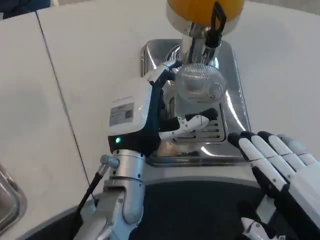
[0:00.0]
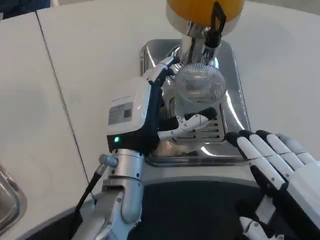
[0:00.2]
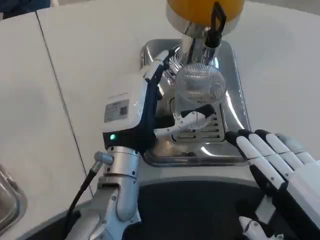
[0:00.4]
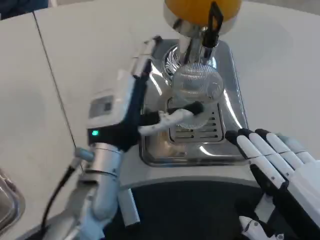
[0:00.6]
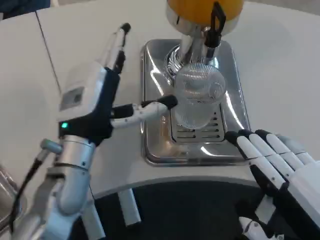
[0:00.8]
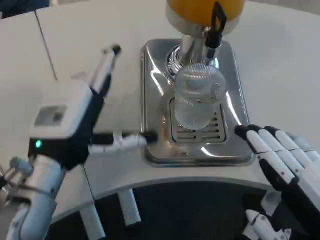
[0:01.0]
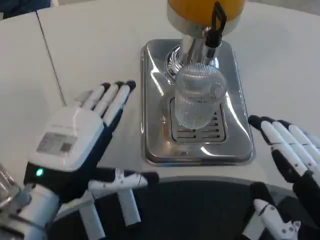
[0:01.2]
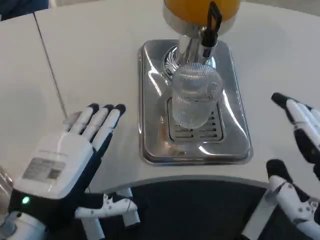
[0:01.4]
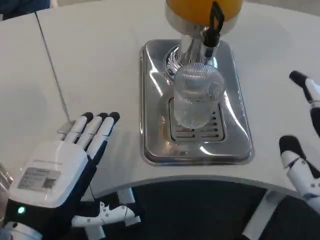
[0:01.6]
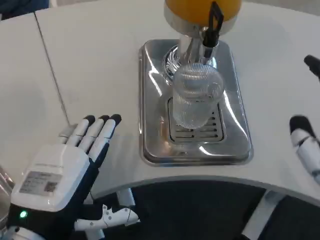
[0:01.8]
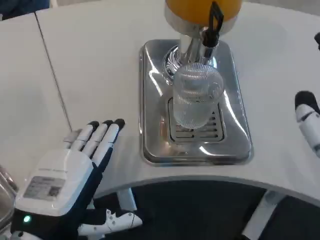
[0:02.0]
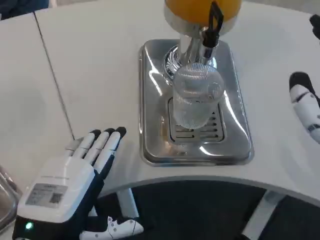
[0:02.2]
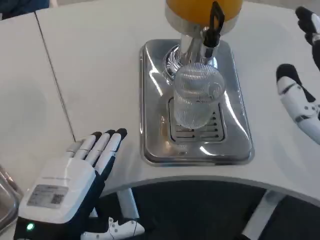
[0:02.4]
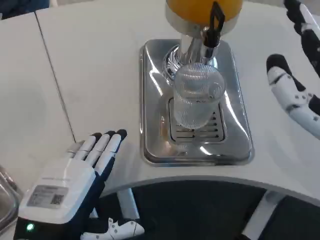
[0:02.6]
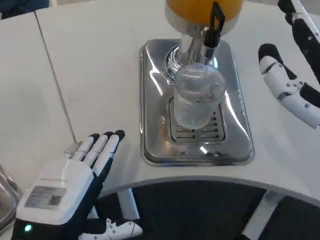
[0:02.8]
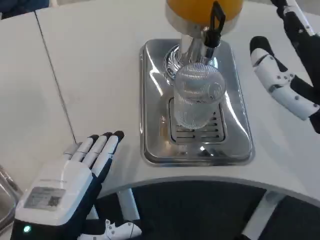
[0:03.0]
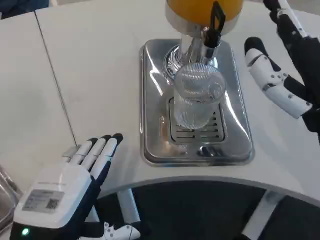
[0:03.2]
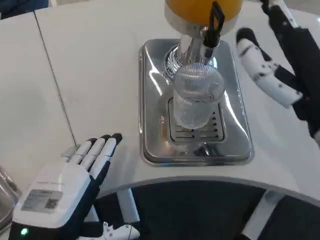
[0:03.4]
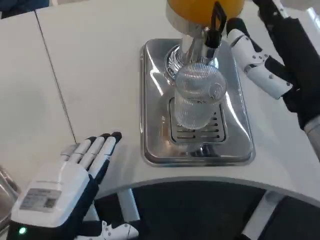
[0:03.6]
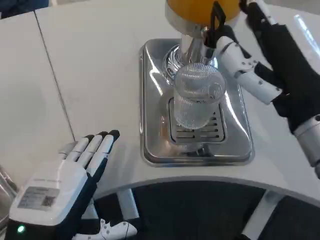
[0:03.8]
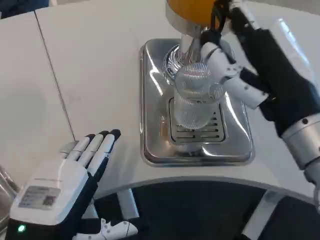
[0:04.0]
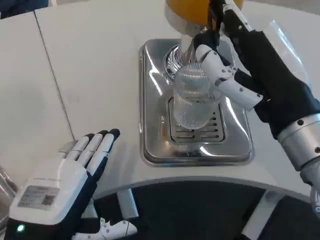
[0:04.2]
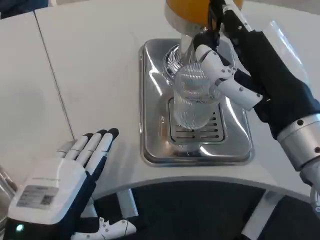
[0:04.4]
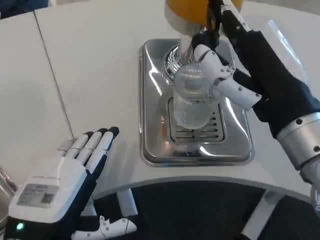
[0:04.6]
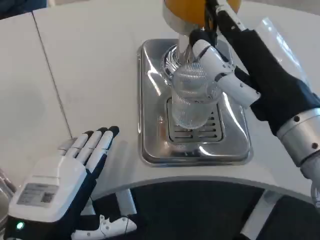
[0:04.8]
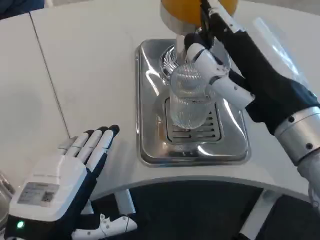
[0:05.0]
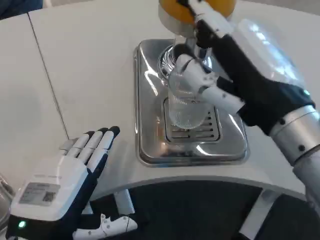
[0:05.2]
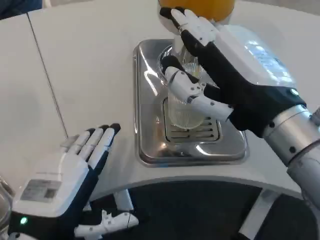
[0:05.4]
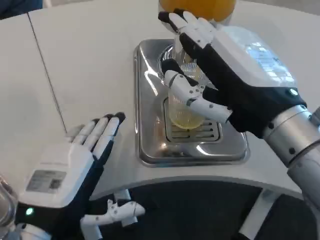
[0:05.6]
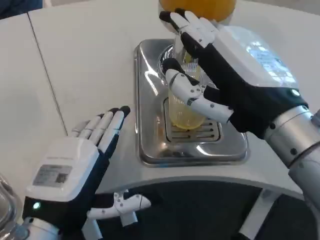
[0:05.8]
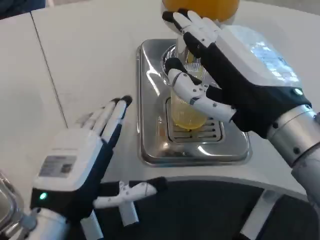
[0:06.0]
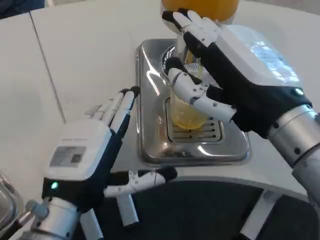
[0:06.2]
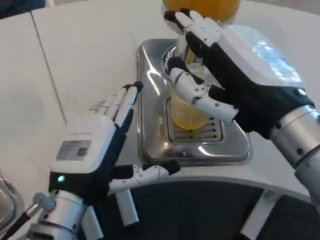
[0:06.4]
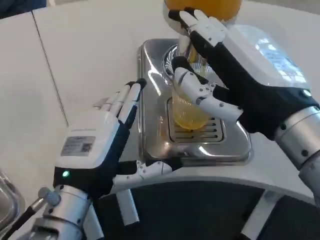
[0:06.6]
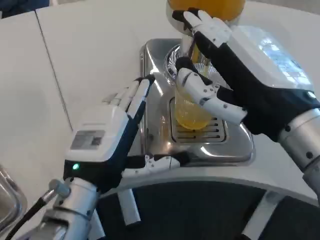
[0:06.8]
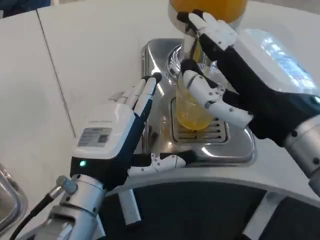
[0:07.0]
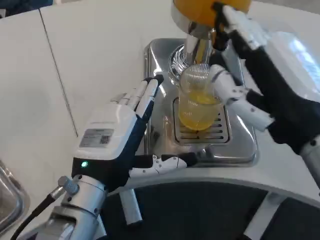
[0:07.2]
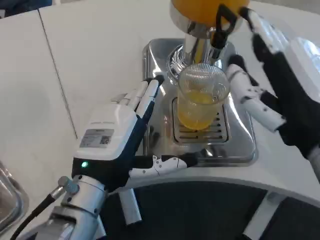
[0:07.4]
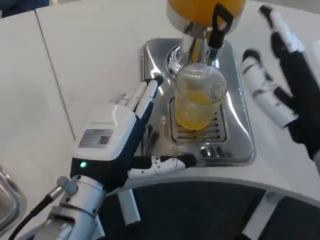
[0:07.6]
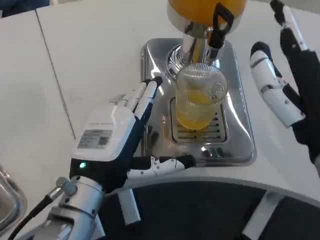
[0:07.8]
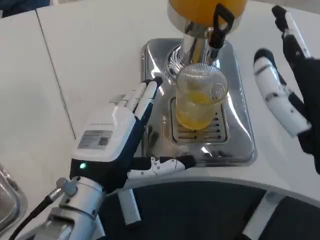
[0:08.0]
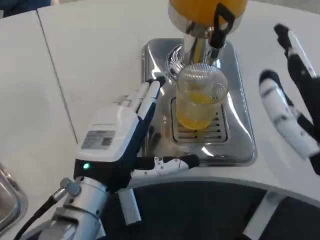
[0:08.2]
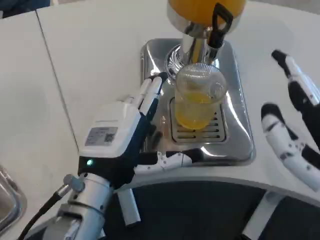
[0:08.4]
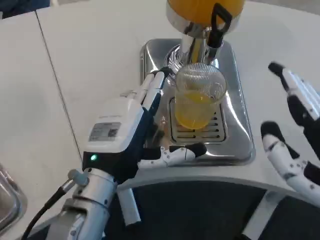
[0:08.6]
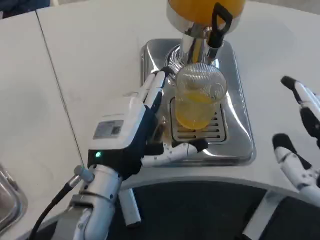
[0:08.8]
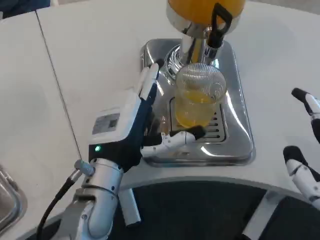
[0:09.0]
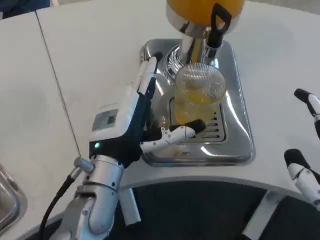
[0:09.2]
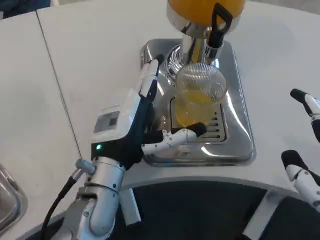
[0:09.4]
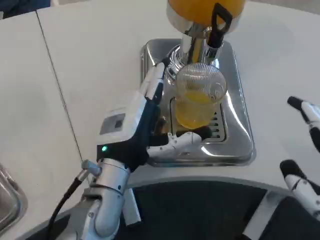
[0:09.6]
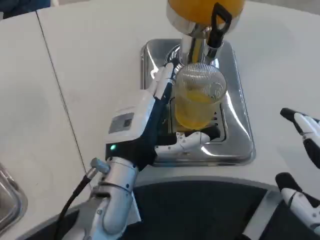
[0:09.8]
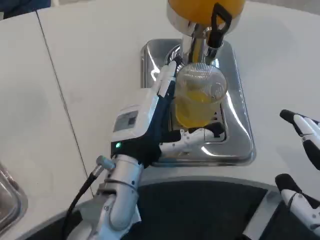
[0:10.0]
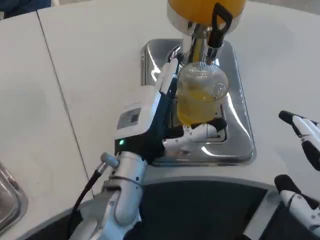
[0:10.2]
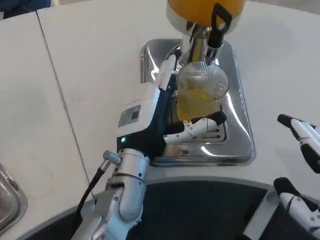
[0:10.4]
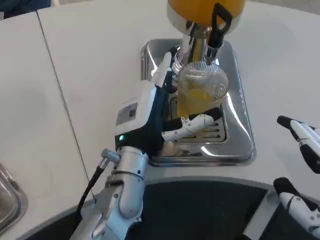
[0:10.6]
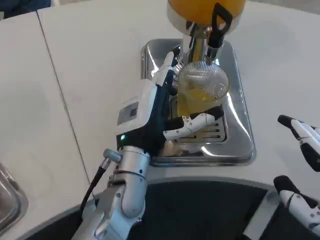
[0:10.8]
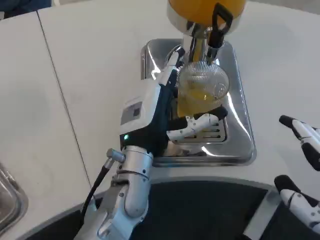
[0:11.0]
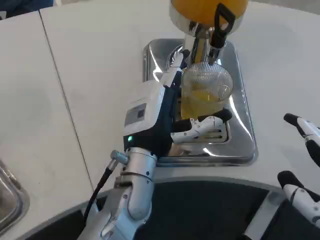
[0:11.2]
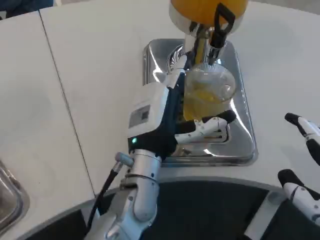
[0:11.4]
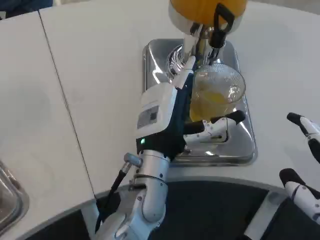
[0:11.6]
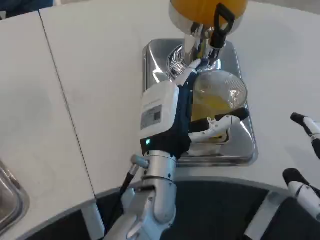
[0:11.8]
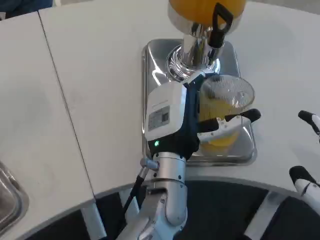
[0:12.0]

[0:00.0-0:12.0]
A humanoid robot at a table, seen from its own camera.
Task of the whole recording: Grasp the cup under the faucet to collect the drink, then remove the cup.
0:00.0 to 0:01.6: The left hand goes about 20 cm backward and to the left.
0:01.6 to 0:03.0: The right hand moves forward, roughly 10 cm.
0:06.0 to 0:07.6: The left hand ends up approximately 5 cm from where it was.
0:07.6 to 0:09.0: The right hand travels to the right and backward by about 10 cm.
0:09.0 to 0:10.4: There are only small adjustments of the hands.
0:10.4 to 0:12.0: The left hand shifts some 5 cm to the right.

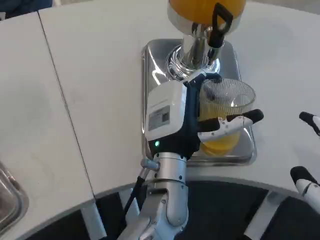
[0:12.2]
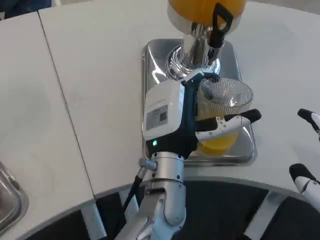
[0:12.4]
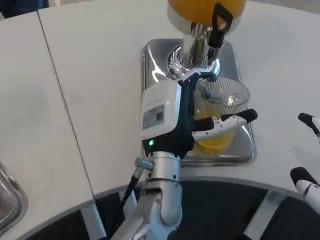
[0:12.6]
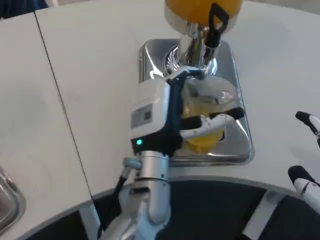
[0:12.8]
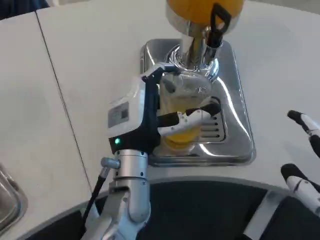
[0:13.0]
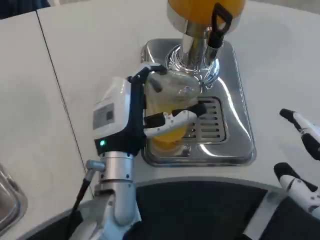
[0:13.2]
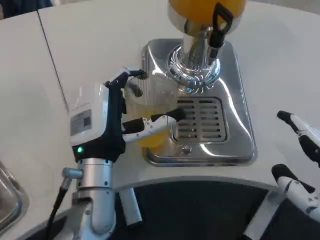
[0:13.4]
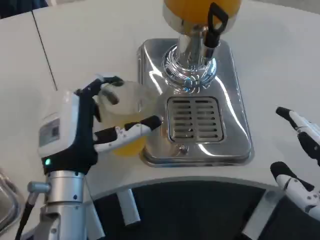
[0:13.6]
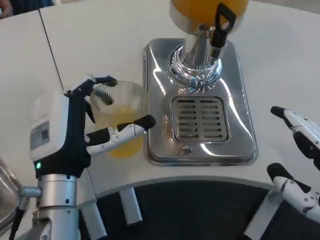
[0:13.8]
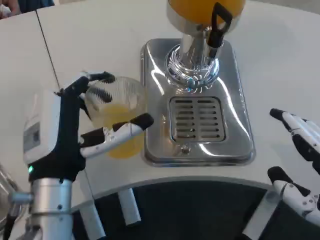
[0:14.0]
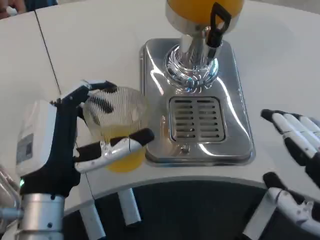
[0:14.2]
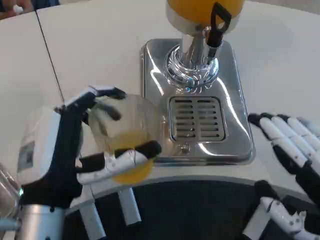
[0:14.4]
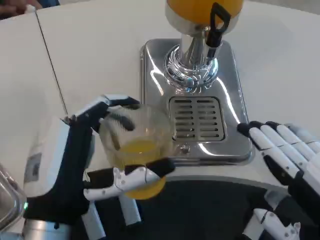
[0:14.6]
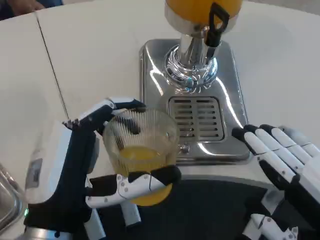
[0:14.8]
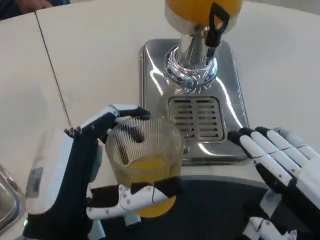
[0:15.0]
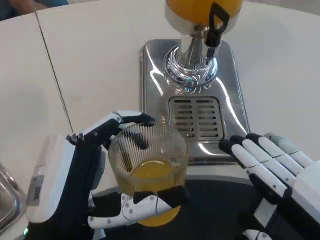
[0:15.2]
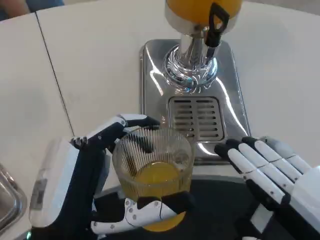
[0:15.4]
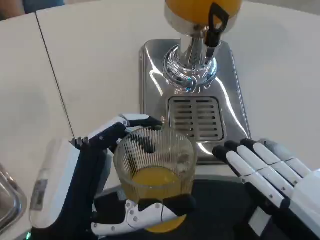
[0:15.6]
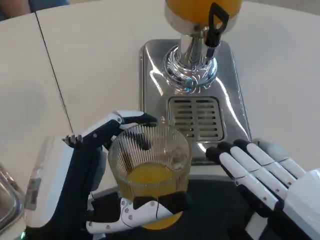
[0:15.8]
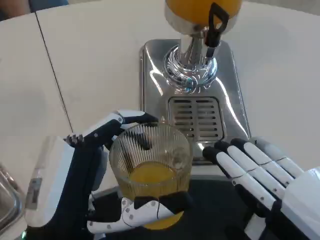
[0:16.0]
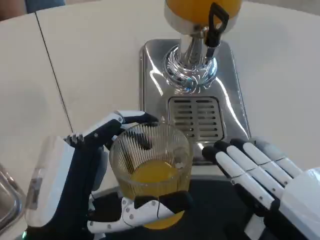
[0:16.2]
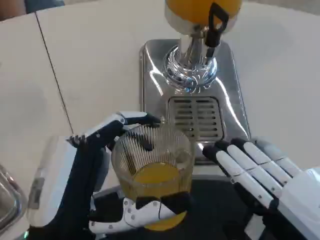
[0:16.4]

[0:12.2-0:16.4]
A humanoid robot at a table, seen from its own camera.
Task of the whole recording: Grasp the cup under the faucet to collect the drink, then remove the cup.
0:12.2 to 0:13.6: The left hand moves to the left, roughly 15 cm.
0:13.6 to 0:15.0: The left hand goes approximately 10 cm backward.

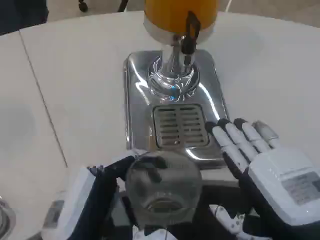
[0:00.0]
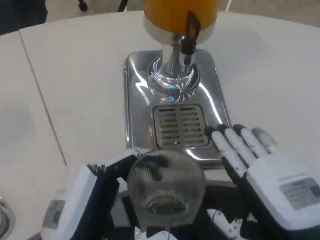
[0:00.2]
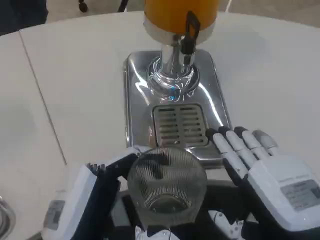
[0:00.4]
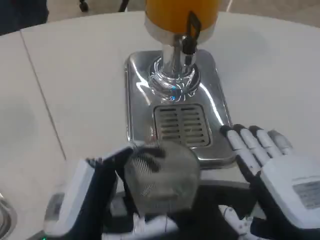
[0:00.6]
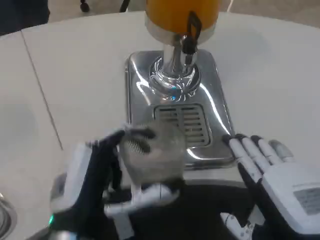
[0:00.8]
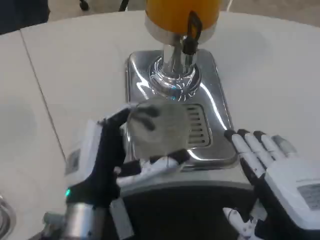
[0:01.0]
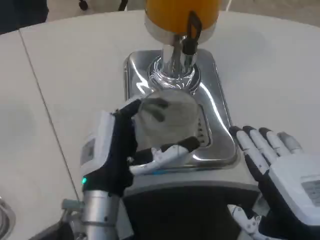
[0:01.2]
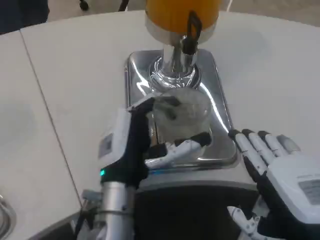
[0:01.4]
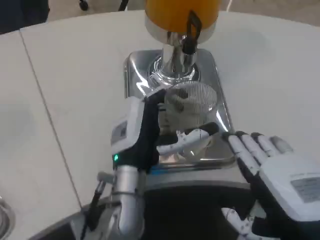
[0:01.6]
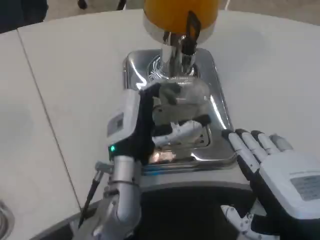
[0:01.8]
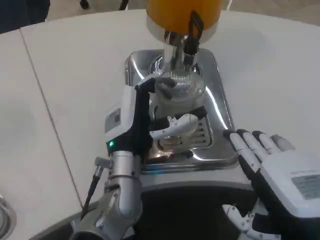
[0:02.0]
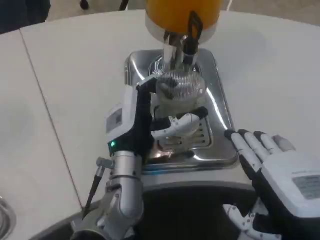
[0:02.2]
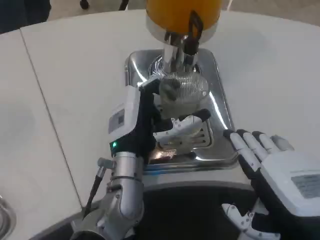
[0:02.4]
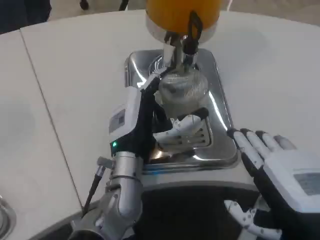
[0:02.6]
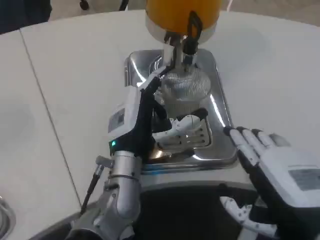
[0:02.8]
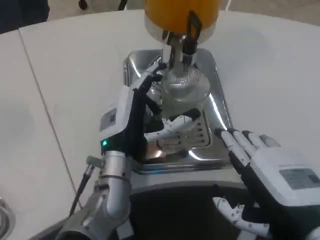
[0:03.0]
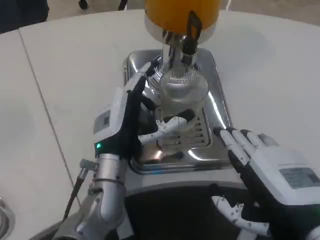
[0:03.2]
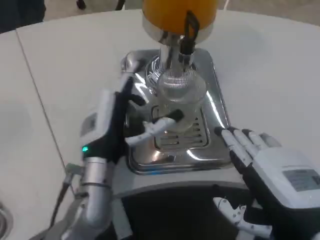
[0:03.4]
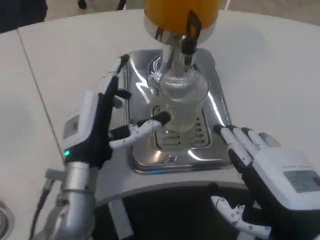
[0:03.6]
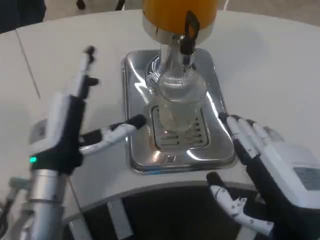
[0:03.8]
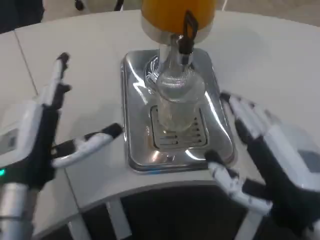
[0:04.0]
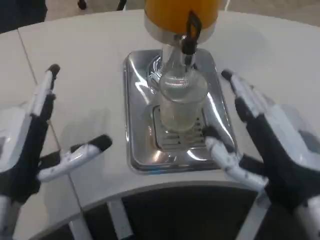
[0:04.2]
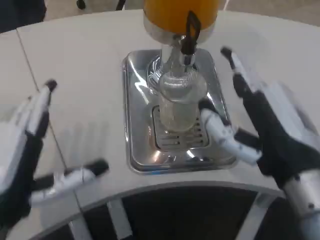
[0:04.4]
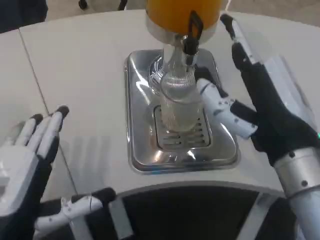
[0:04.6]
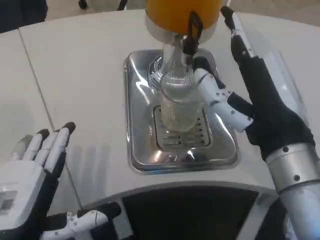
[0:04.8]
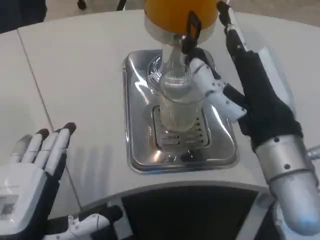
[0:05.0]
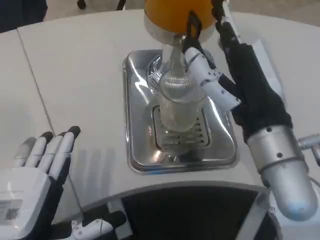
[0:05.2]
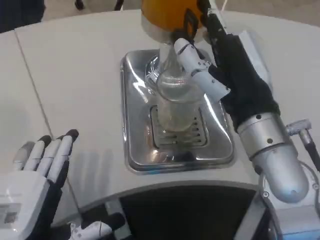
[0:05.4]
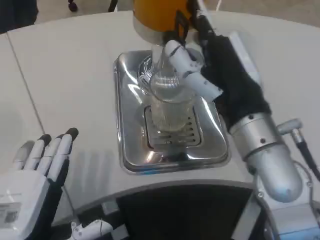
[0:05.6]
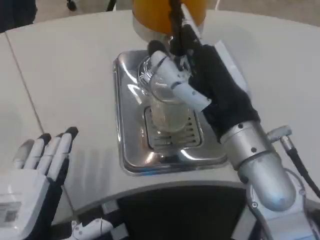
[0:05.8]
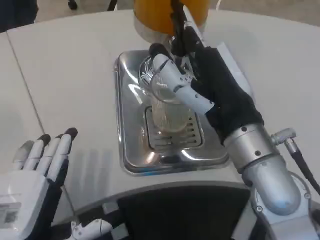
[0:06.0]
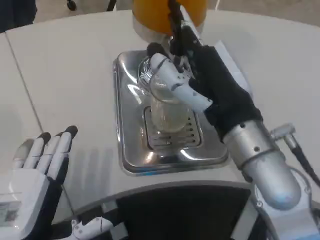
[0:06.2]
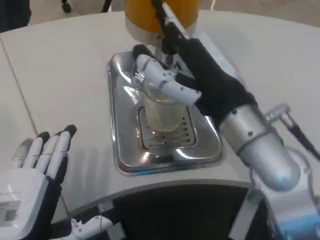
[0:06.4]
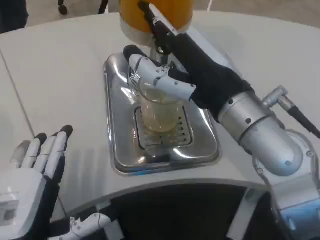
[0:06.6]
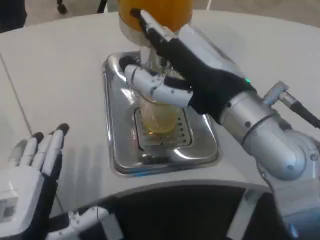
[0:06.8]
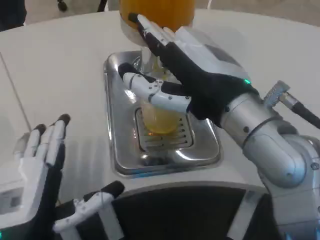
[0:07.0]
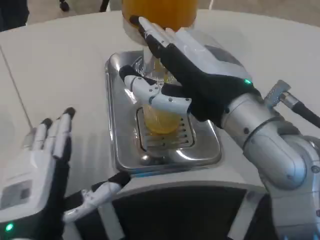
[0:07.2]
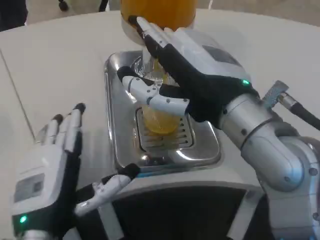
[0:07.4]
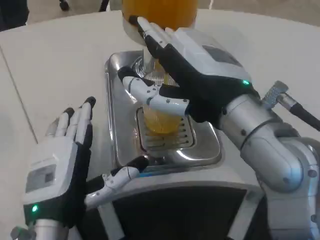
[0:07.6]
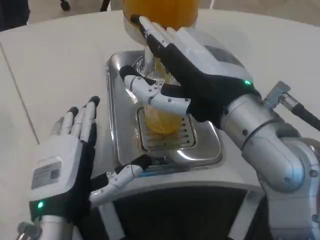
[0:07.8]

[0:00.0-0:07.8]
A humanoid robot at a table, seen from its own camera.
Task of the whole recording: Grasp the cup under the faucet to collect the drink, then remove the cup.
0:00.0 to 0:01.6: The left hand travels forward and to the right by approximately 20 cm.
0:01.6 to 0:03.2: The hands make only small movements.
0:03.2 to 0:04.6: The left hand moves backward and to the left, approximately 20 cm; the right hand travels upward by approximately 5 cm.
0:04.6 to 0:06.2: The right hand changes place by roughly 5 cm.
0:06.2 to 0:07.8: The left hand goes about 5 cm forward; the right hand moves roughly 5 cm.
